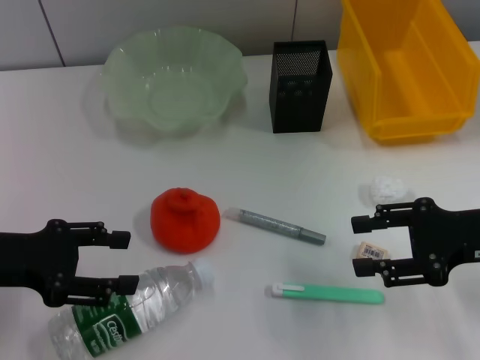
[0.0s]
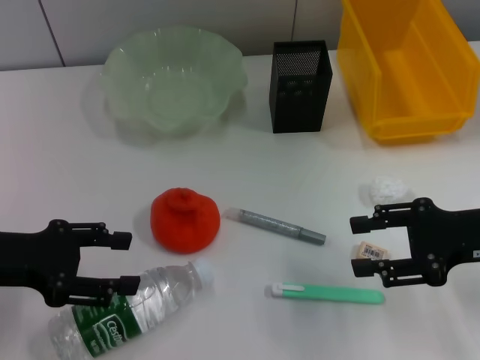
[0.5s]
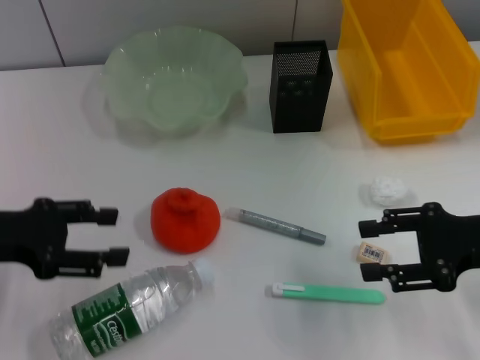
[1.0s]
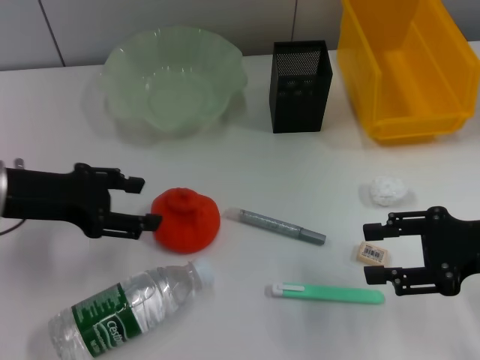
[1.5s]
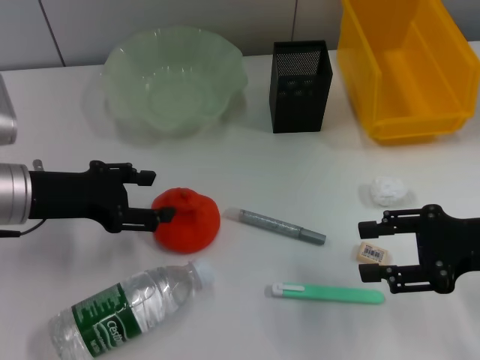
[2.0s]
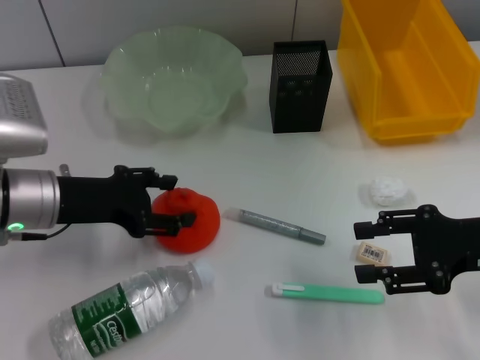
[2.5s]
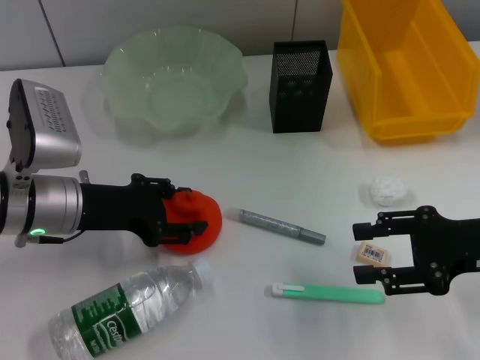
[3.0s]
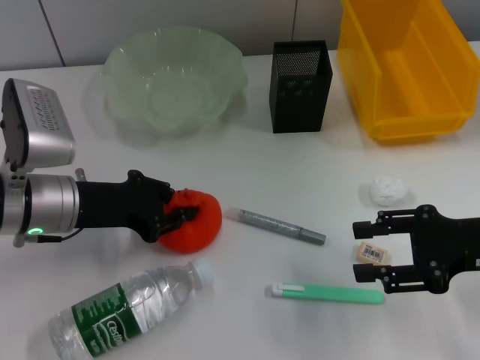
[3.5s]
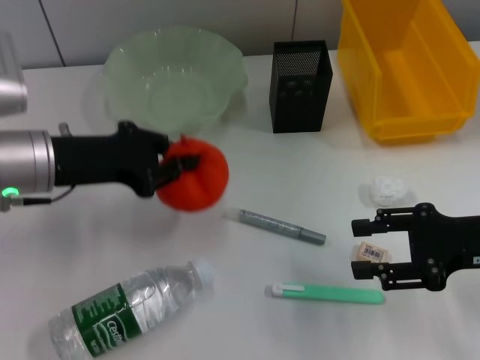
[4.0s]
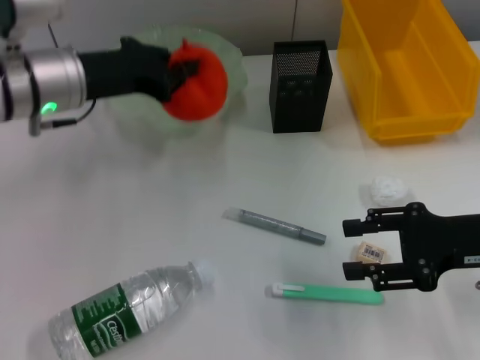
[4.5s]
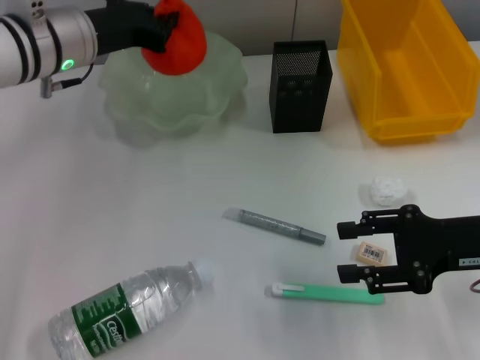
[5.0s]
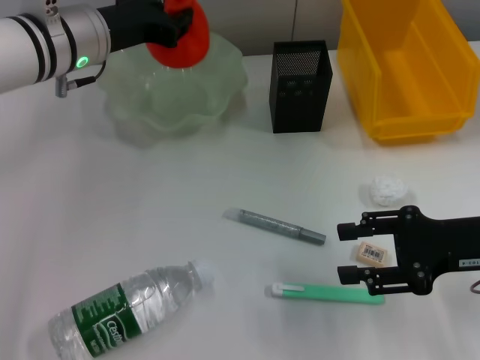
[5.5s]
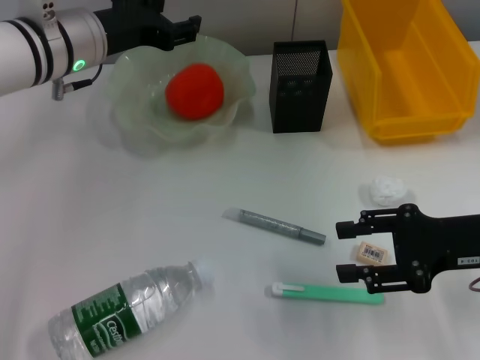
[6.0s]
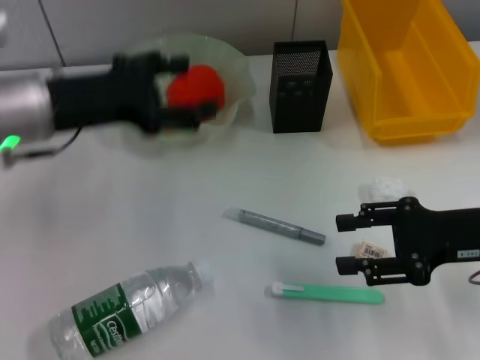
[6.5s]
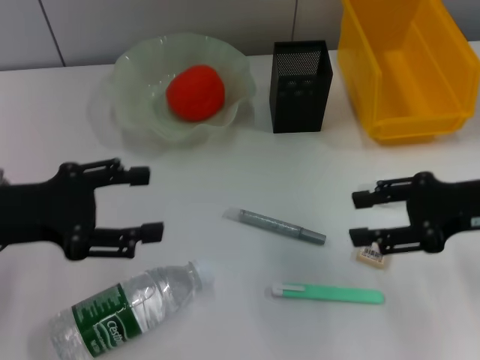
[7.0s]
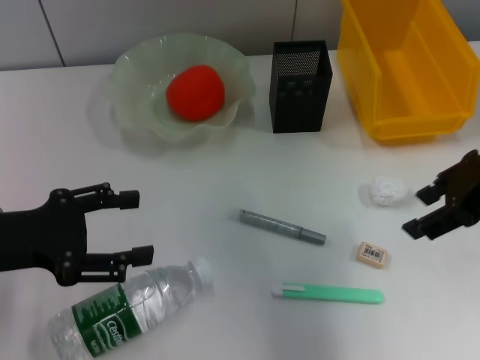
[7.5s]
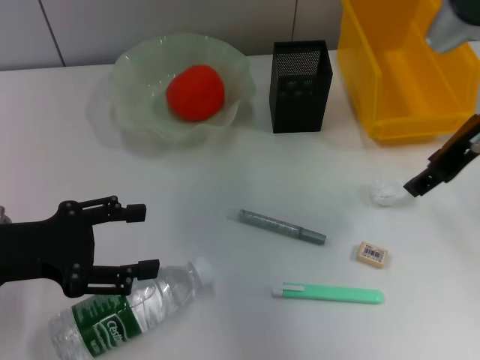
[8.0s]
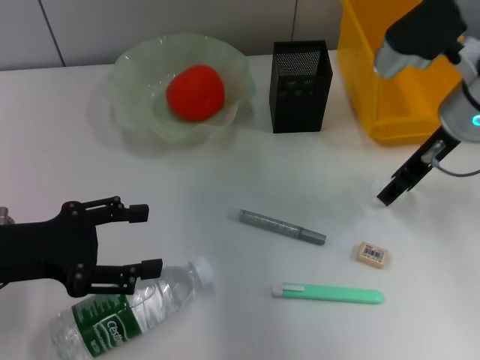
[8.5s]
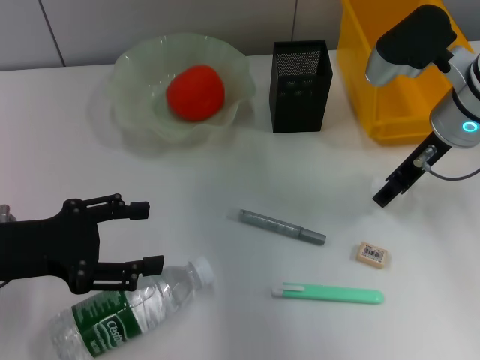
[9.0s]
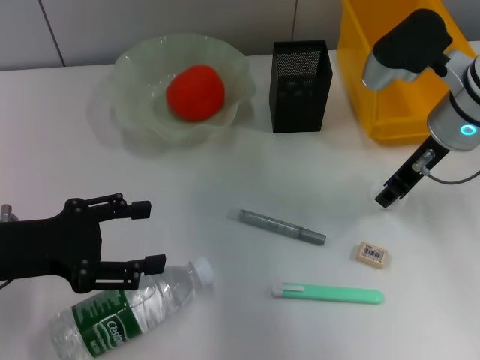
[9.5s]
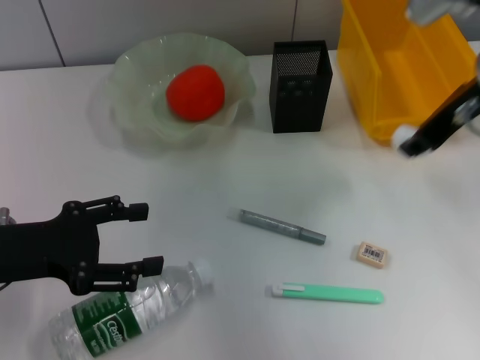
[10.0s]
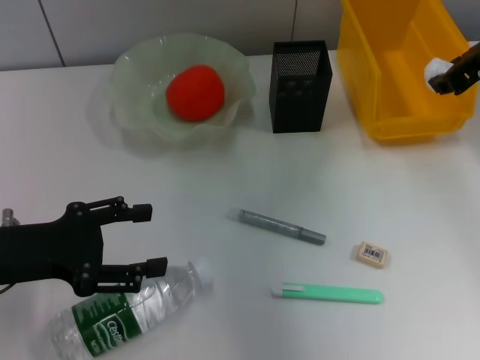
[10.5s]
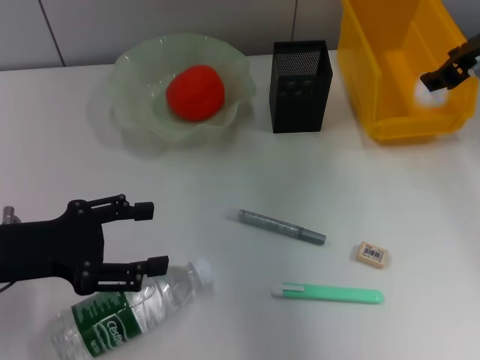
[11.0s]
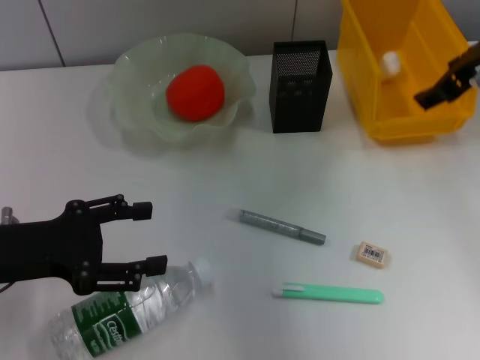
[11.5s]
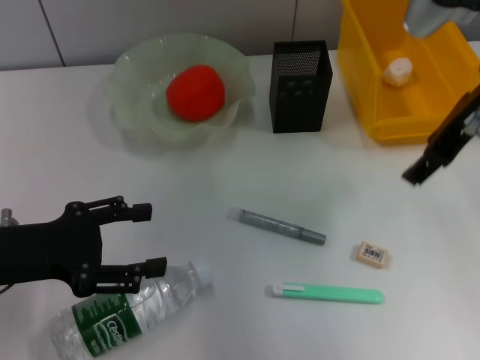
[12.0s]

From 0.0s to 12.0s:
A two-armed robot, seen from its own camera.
Step, from 0.0s to 3.5s: Grab the orange with the left hand.
Step, from 4.0s to 6.0s: Place the orange into the fruit bowl with the left hand.
Step, from 6.5s to 9.0s: Grab the paper ball with the right hand.
Step, from 9.5s to 12.0s: Place the paper ball into the trash can with the right hand.
From 0.0s to 2.0s: The left gripper shifts about 5 cm forward and to the right.
From 2.0s to 4.0s: The left gripper closes up.
From 4.0s to 6.0s: The left gripper is displaced forward and to the right by about 10 cm, and opens its fingers.
From 6.0s to 8.0s: The left gripper travels backward and to the left by about 20 cm, and opens its fingers; the right gripper heads upward and forward, covering roughly 15 cm.
From 8.0s to 10.0s: The right gripper goes downward and returns, about 5 cm each way, and closes its fingers.
From 10.0s to 12.0s: The right gripper opens.

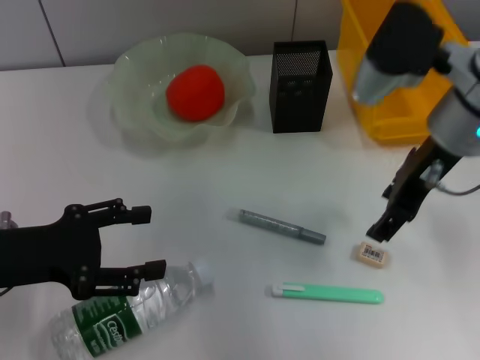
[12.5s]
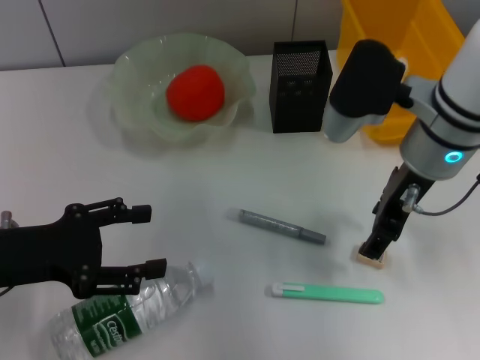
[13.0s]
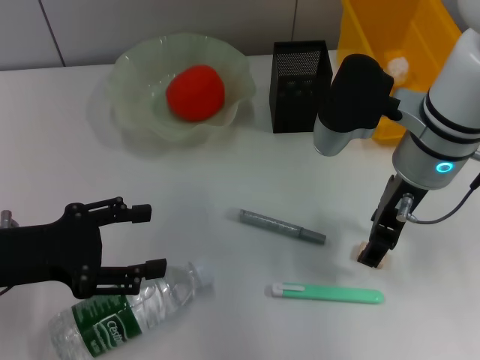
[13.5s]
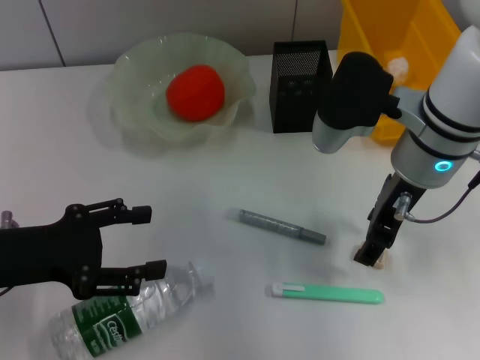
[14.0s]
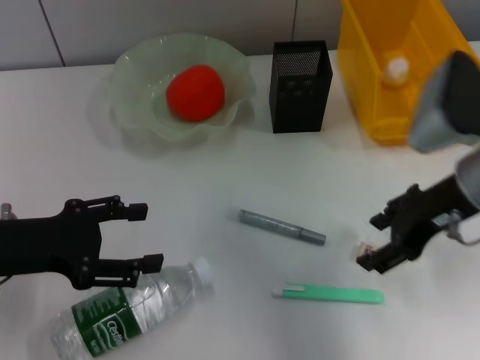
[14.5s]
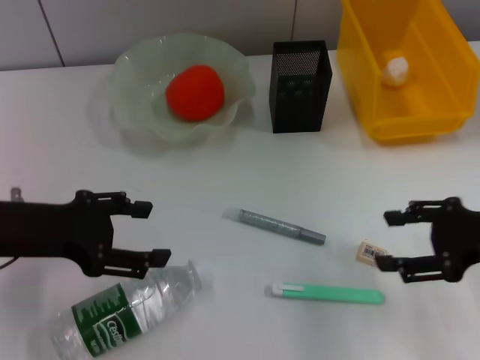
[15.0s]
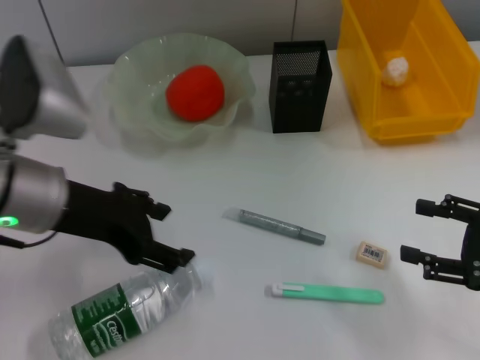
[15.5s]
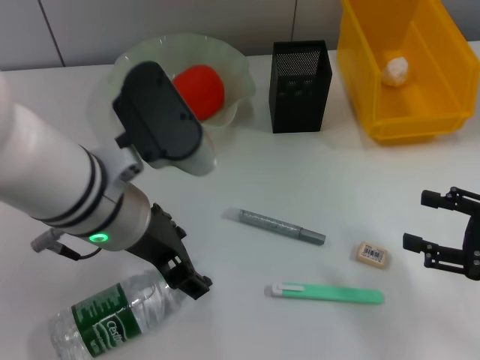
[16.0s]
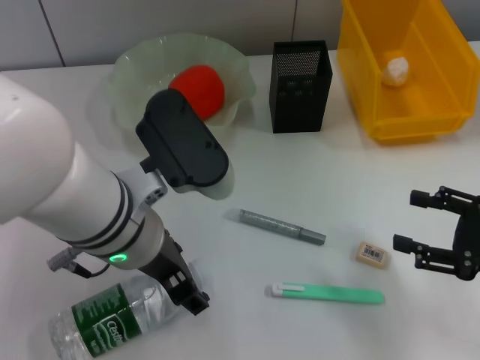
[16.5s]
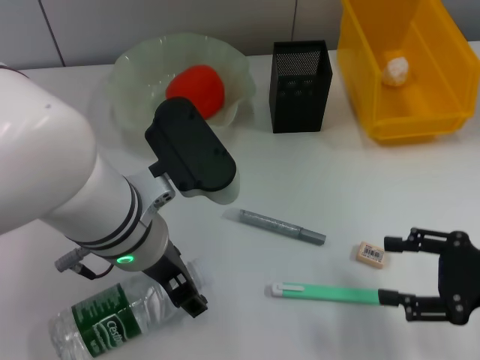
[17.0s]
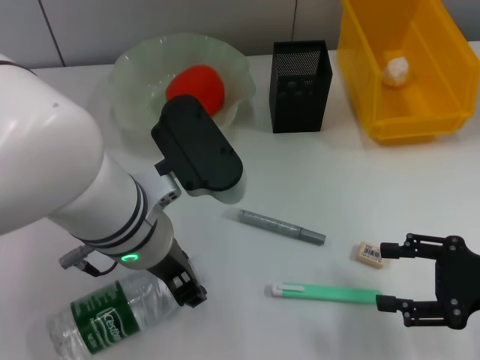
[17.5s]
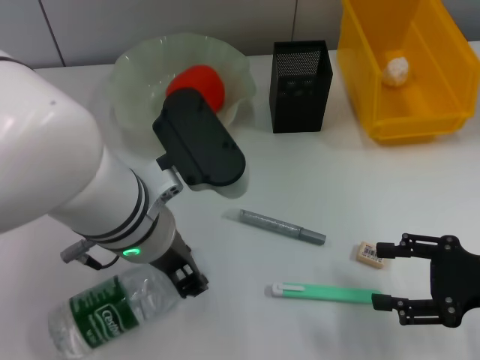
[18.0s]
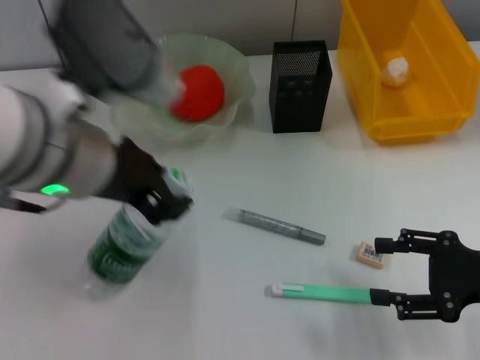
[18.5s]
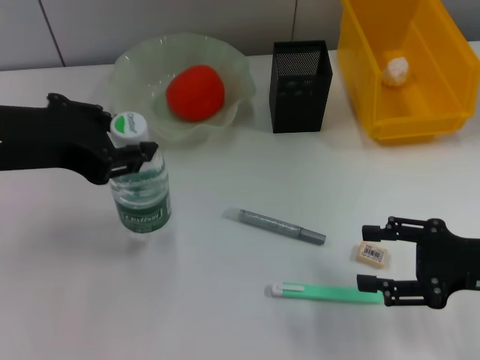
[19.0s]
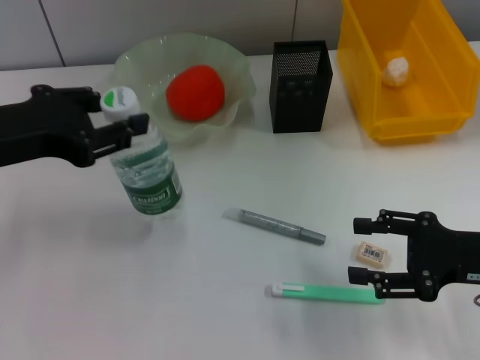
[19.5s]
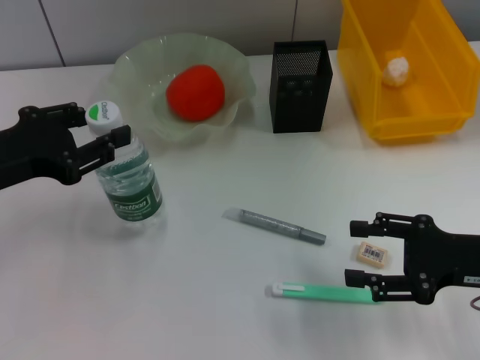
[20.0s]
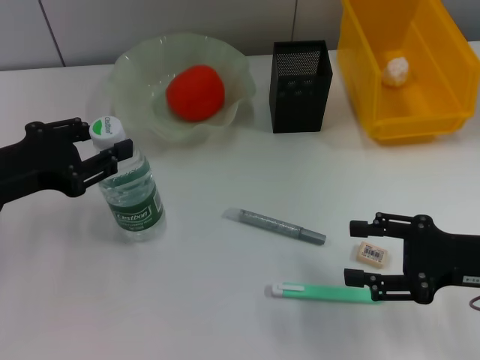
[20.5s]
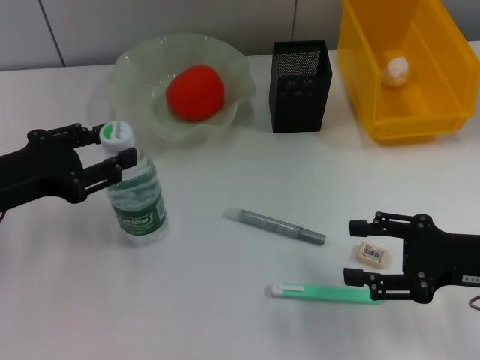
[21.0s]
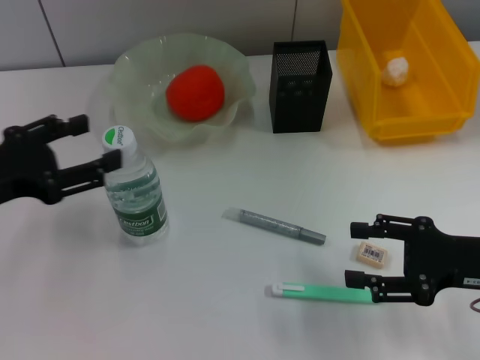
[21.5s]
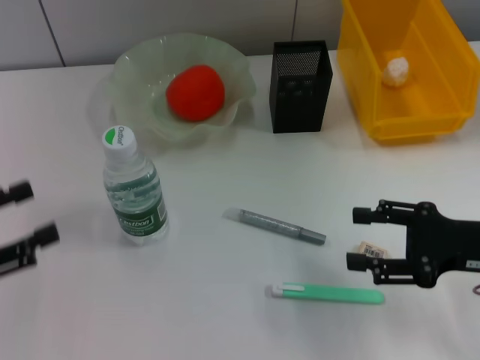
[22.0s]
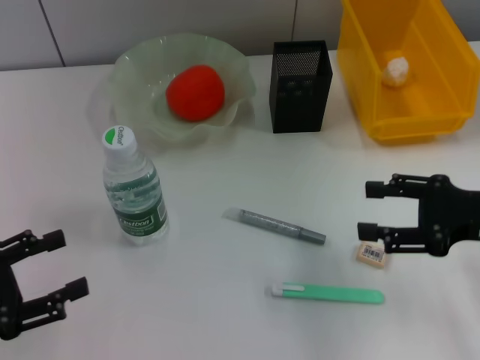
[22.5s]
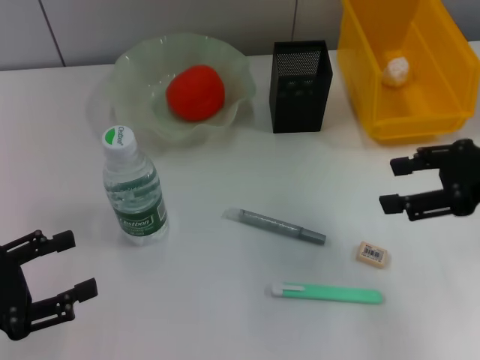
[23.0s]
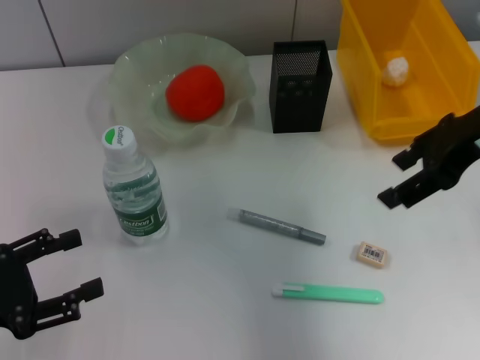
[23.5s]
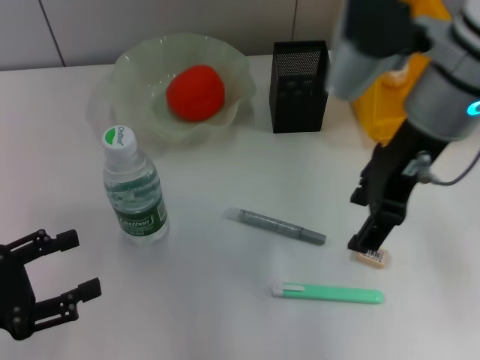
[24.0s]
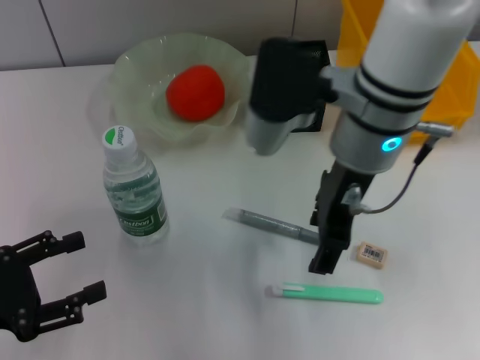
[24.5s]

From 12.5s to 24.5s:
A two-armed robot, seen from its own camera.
Step, from 12.5s to 17.5s: Grab the water bottle with the left hand.
Step, from 18.0s to 21.0s: Place the water bottle on the table with the left hand.
From 12.5s to 14.5s: The right gripper changes place by about 5 cm.
From 14.5s to 16.5s: The right gripper shifts approximately 15 cm to the right, backward and downward. The left gripper is displaced to the right by approximately 20 cm.
From 16.5s to 18.5s: The left gripper shifts approximately 10 cm upward, and closes its fingers.
From 18.5s to 20.5s: The left gripper goes roughly 15 cm to the left and downward.
From 20.5s to 22.5s: The left gripper travels backward, to the left and downward by some 10 cm, and opens its fingers.
From 22.5s to 24.5s: The right gripper travels to the left and upward by some 25 cm.

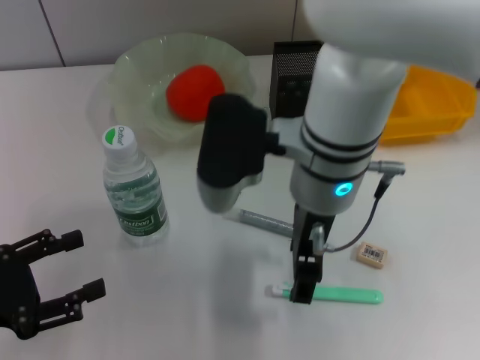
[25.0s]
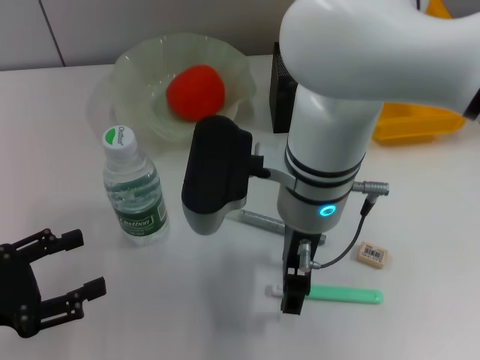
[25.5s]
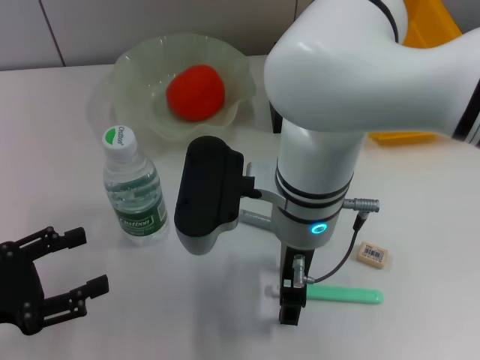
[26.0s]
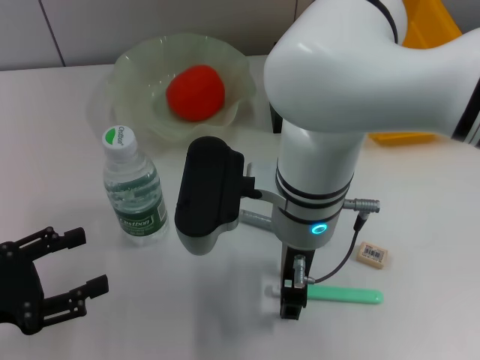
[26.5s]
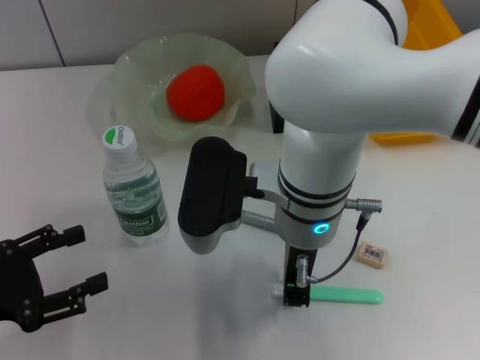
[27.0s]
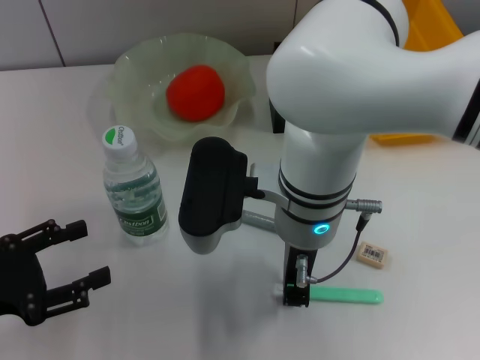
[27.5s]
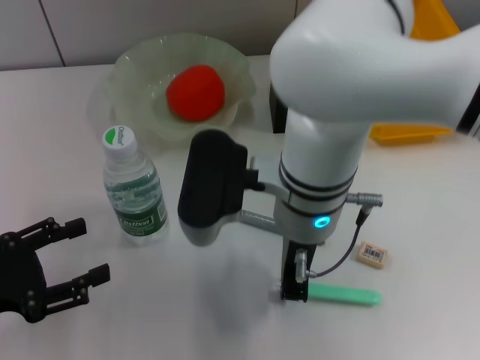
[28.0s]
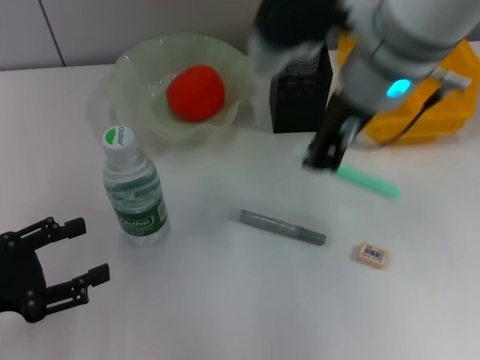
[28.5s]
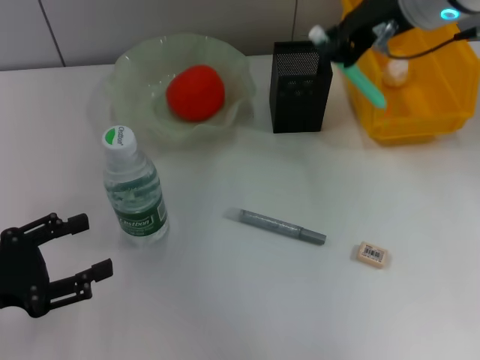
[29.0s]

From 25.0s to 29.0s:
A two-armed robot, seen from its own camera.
Step, from 25.0s to 27.5s: Grab the blue utility knife with the right hand.
From 25.0s to 27.0s: The right gripper closes its fingers.
From 27.0s to 29.0s: The right gripper moves to the right, upward and forward, about 20 cm.
